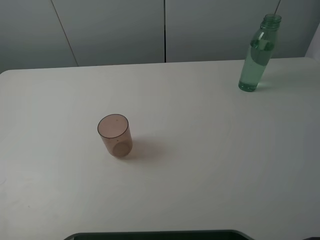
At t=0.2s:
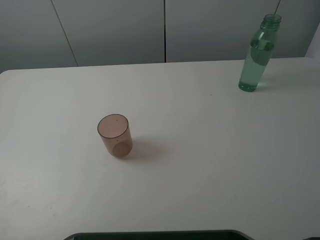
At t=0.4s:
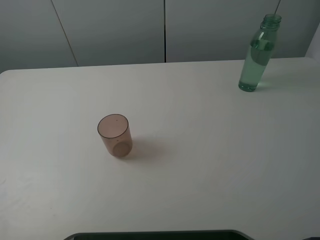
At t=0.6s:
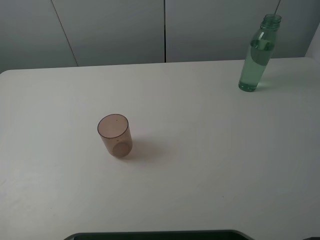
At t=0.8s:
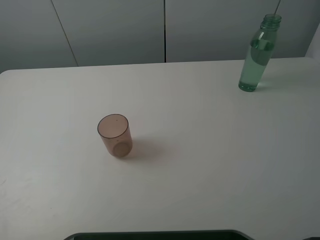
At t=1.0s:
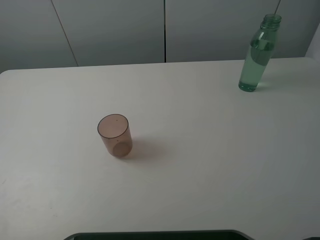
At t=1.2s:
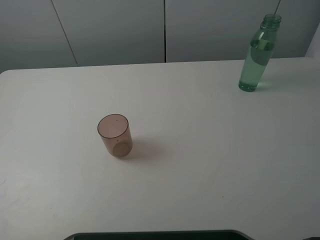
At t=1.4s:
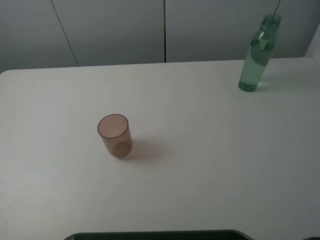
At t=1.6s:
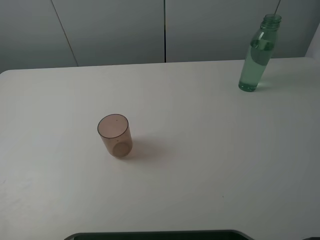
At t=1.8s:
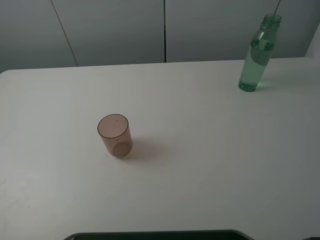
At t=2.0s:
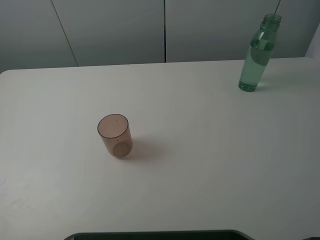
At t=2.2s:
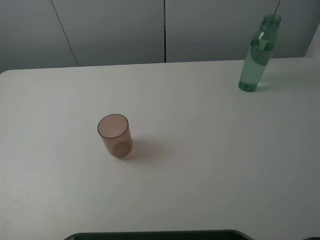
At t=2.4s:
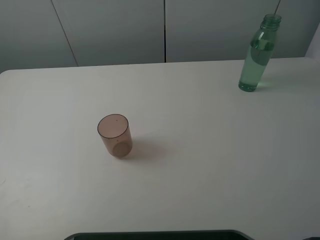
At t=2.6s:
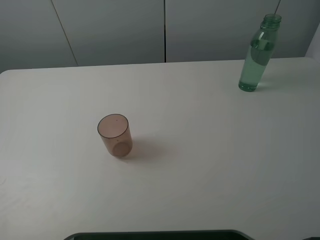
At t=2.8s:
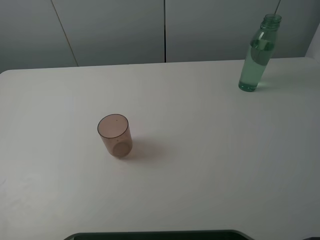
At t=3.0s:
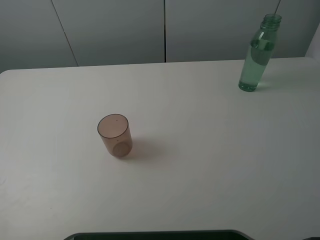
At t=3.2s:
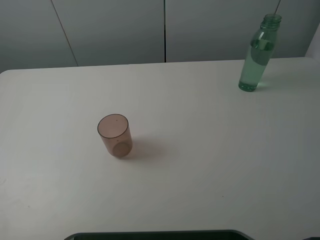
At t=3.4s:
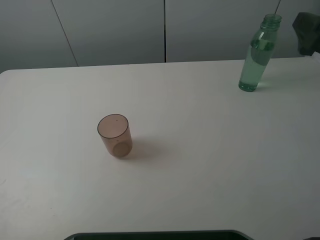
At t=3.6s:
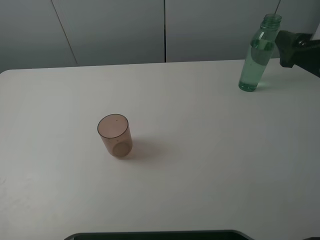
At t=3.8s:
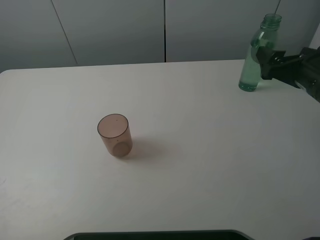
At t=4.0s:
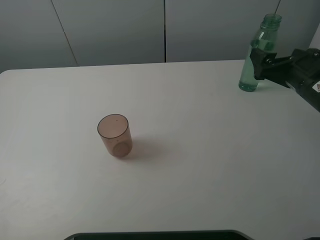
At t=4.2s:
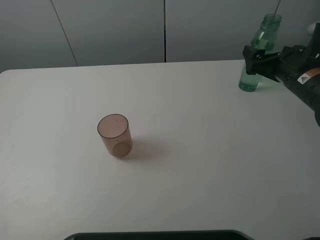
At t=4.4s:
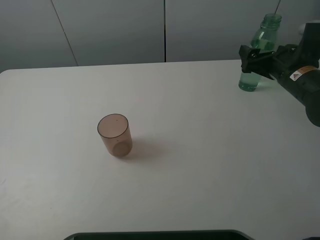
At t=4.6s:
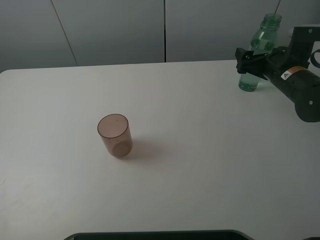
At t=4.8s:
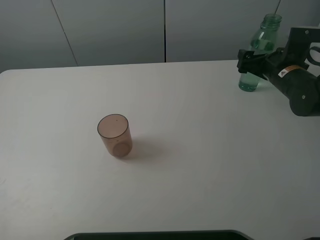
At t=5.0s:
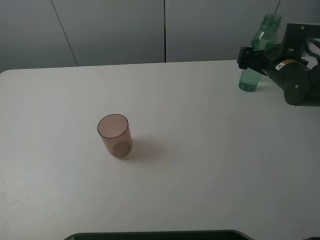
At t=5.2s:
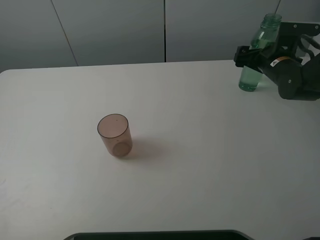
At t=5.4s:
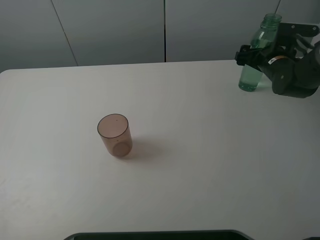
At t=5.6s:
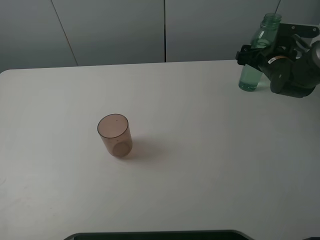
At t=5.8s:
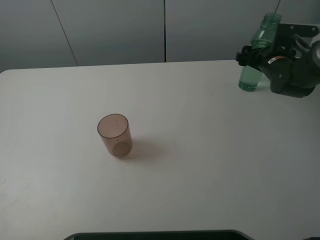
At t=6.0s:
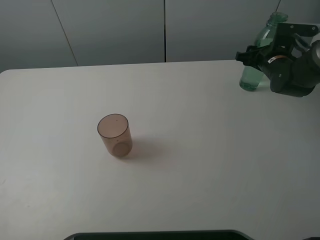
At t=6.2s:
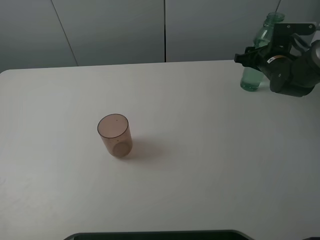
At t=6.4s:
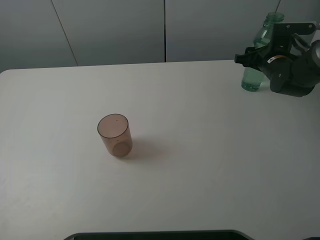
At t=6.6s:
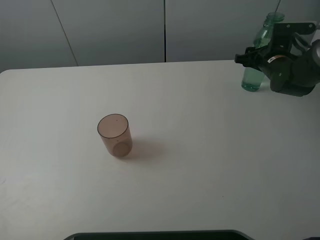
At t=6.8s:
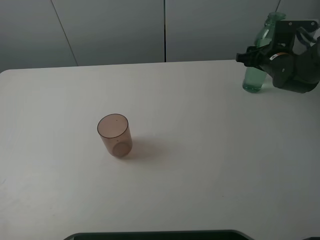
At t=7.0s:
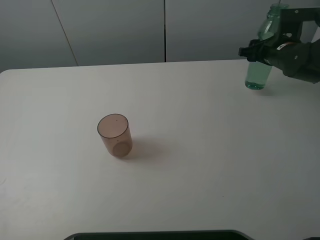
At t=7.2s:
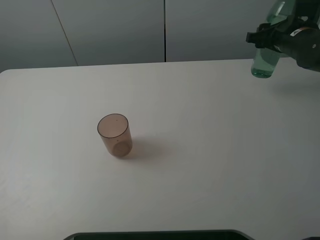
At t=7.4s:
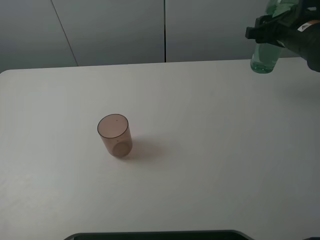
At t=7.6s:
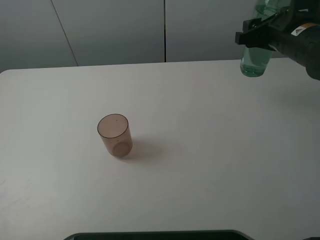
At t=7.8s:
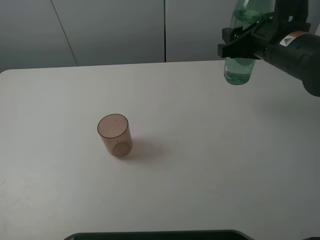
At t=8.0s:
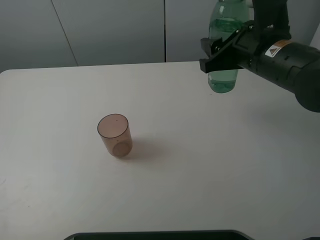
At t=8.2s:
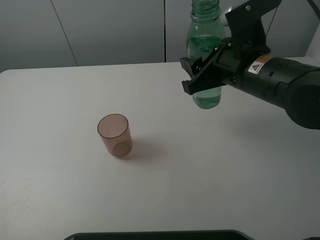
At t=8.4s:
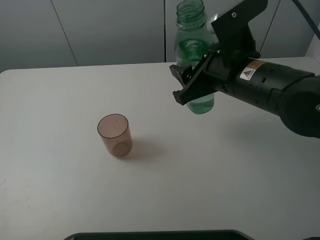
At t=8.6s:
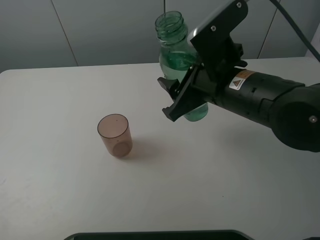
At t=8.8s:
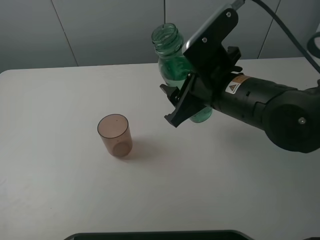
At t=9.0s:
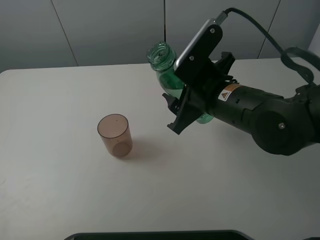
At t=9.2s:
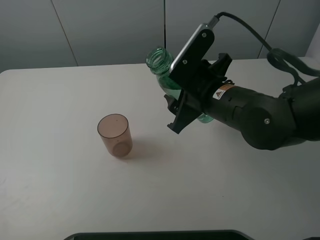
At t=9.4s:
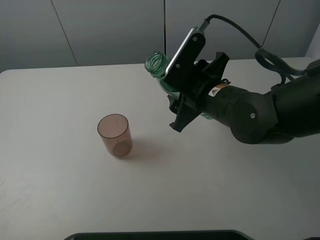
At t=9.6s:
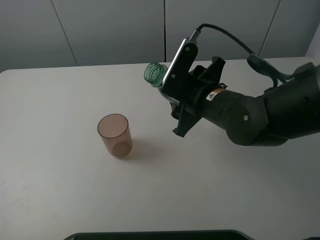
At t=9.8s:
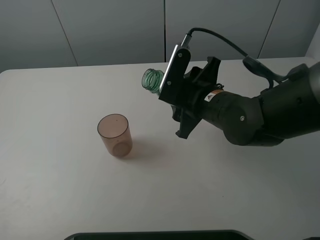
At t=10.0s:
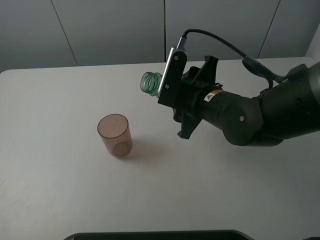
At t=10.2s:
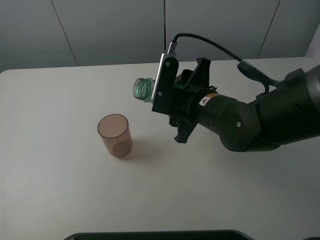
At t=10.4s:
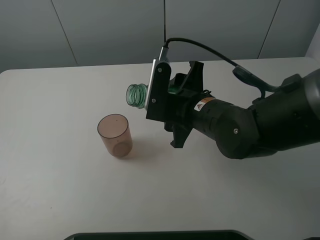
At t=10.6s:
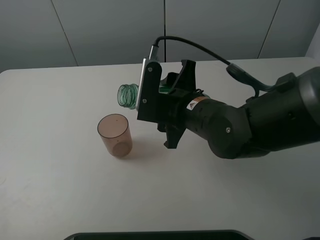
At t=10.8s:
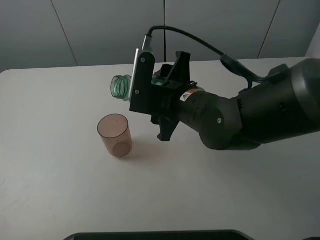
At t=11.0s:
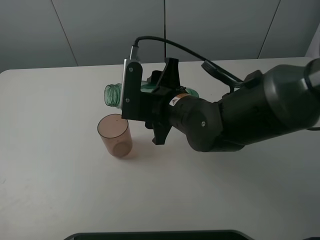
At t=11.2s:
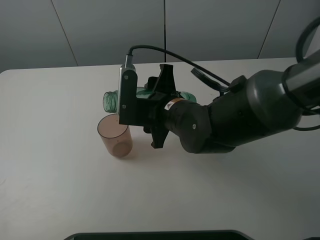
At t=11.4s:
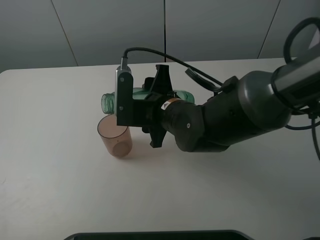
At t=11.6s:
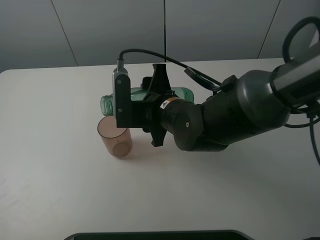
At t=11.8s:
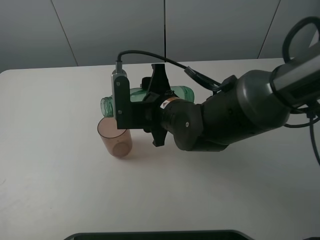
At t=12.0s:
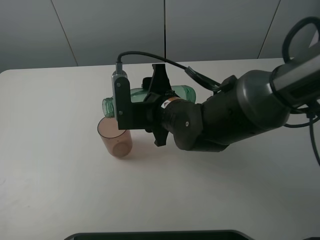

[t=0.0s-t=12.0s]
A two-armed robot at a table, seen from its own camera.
Task of the whole recording: pick up the bottle filled with water and pour it into the pink cup.
Step, t=0.0s to t=6.4s: Grasp the green bottle with the right gripper.
t=0.0s to t=1.6s: Both grippers stay put.
t=3.0s to t=4.4s: The right gripper shifts some 20 cm downward and forward.
t=4.4s to t=6.0s: The right gripper moves forward, approximately 10 cm, and closes.
t=6.0s to t=7.6s: The right gripper is displaced upward, backward and to the left by some 15 cm.
t=7.6s to t=9.0s: The right gripper moves to the left and backward, roughly 15 cm.
t=10.4s to t=12.0s: The right gripper shifts by some 5 cm.

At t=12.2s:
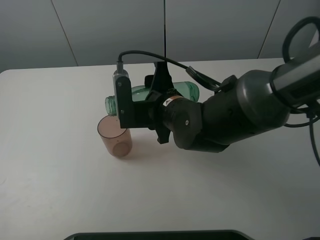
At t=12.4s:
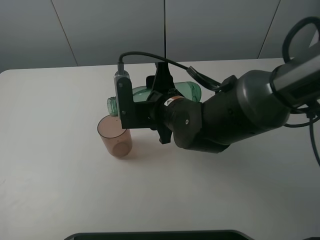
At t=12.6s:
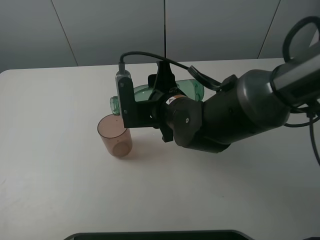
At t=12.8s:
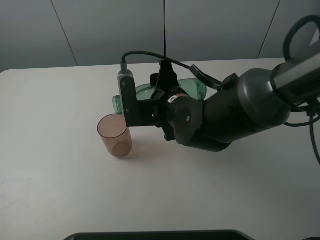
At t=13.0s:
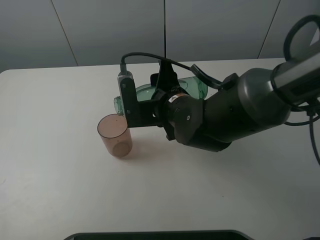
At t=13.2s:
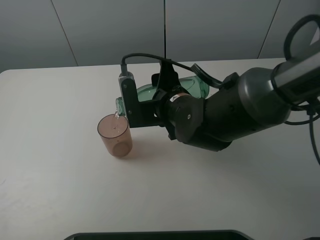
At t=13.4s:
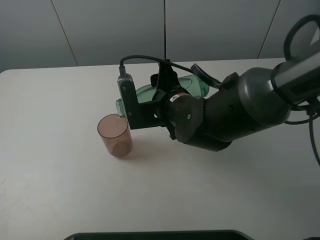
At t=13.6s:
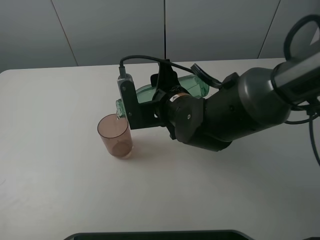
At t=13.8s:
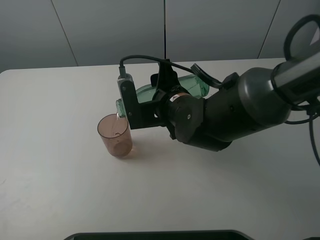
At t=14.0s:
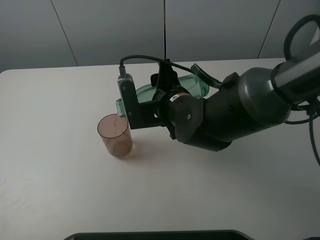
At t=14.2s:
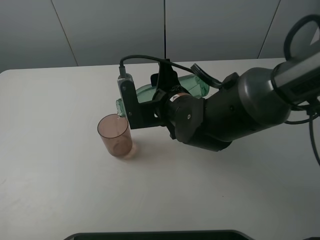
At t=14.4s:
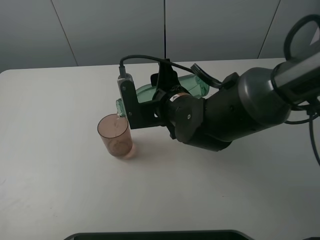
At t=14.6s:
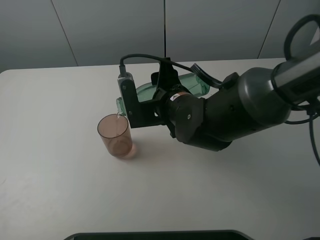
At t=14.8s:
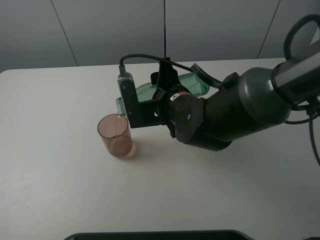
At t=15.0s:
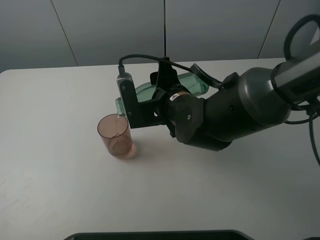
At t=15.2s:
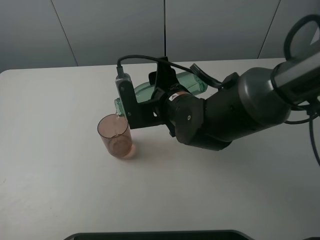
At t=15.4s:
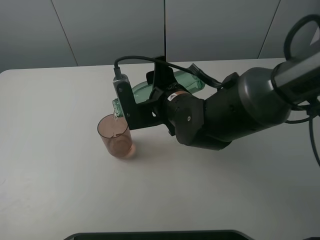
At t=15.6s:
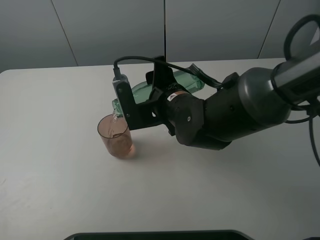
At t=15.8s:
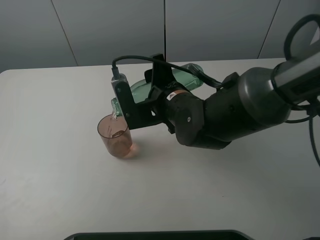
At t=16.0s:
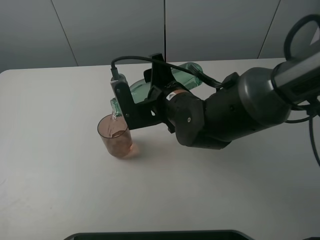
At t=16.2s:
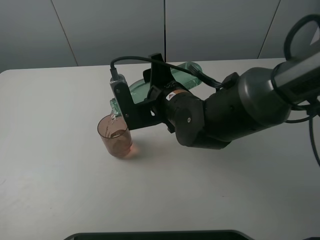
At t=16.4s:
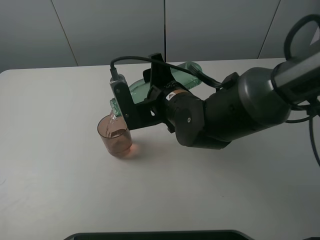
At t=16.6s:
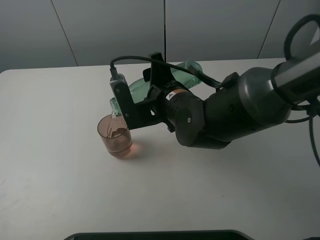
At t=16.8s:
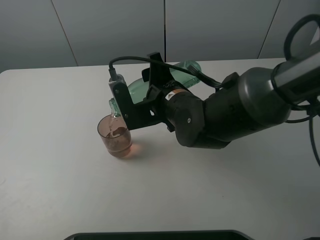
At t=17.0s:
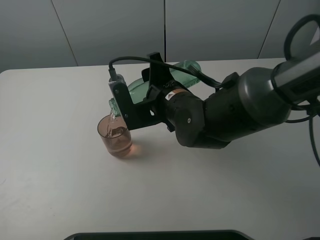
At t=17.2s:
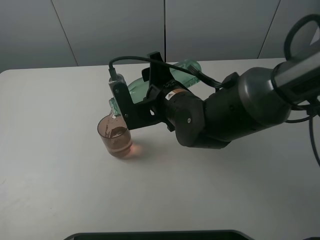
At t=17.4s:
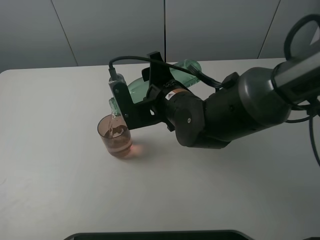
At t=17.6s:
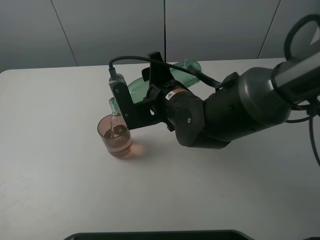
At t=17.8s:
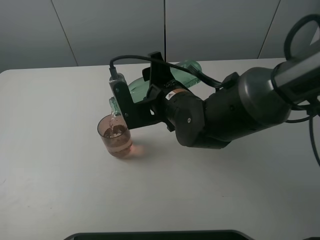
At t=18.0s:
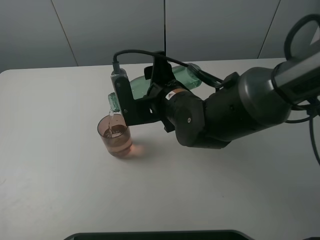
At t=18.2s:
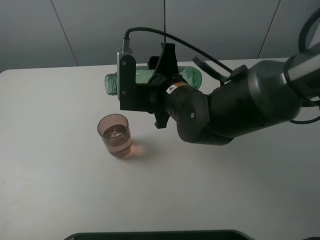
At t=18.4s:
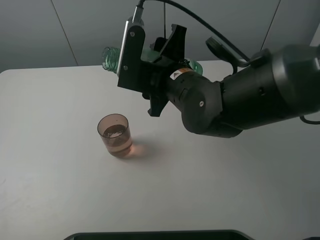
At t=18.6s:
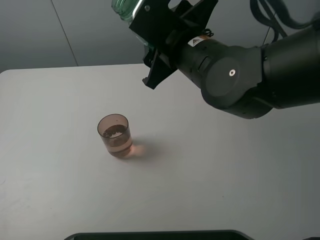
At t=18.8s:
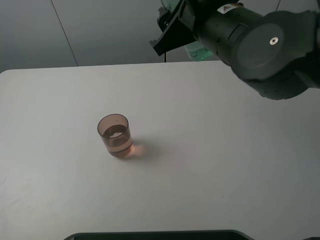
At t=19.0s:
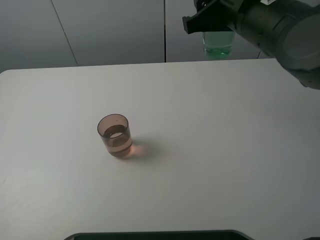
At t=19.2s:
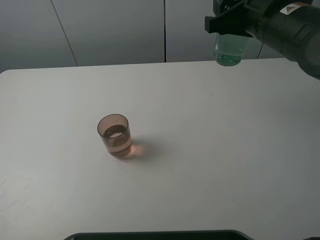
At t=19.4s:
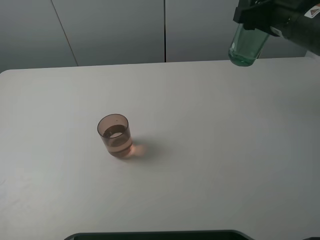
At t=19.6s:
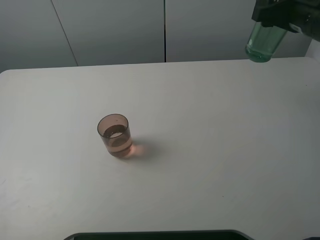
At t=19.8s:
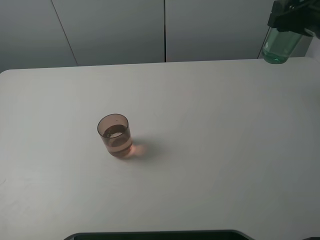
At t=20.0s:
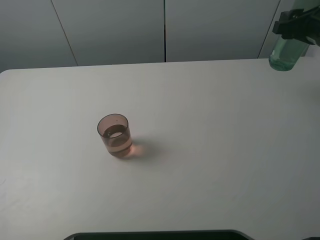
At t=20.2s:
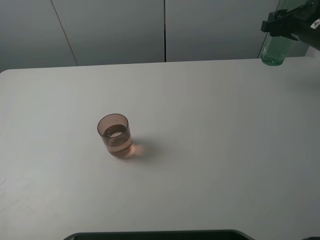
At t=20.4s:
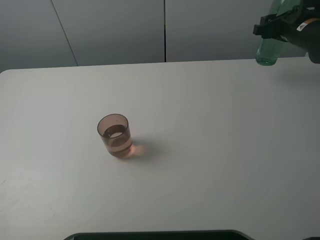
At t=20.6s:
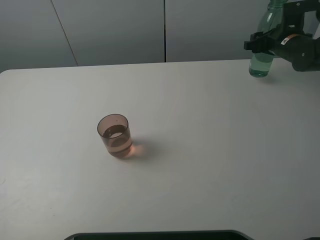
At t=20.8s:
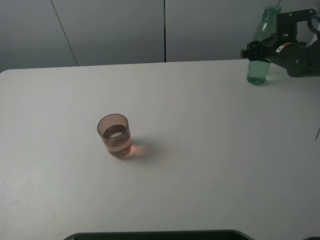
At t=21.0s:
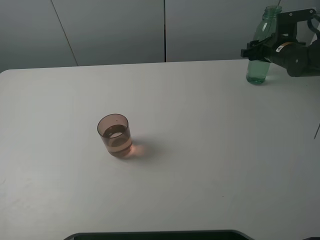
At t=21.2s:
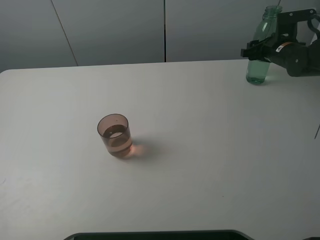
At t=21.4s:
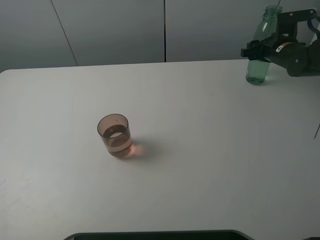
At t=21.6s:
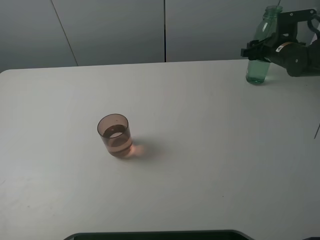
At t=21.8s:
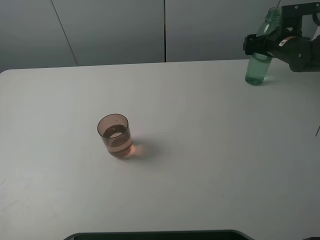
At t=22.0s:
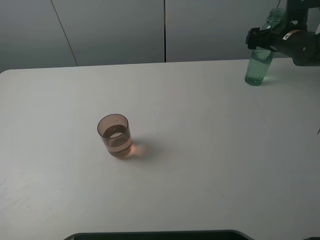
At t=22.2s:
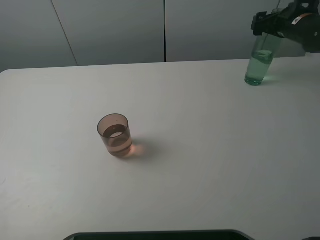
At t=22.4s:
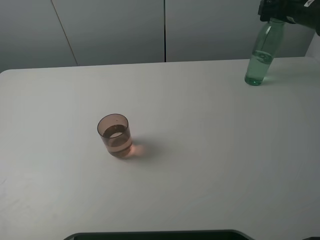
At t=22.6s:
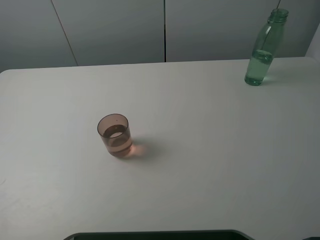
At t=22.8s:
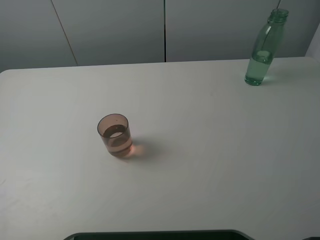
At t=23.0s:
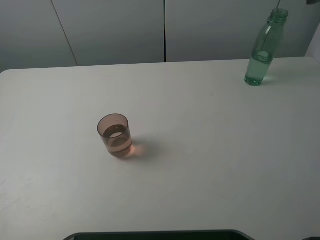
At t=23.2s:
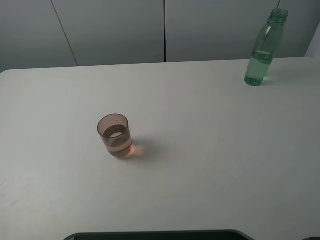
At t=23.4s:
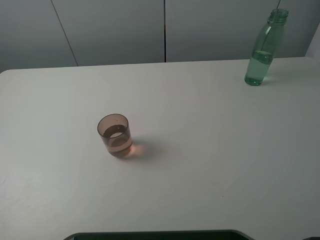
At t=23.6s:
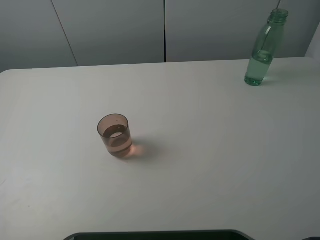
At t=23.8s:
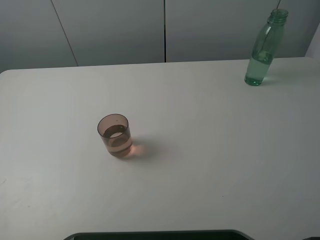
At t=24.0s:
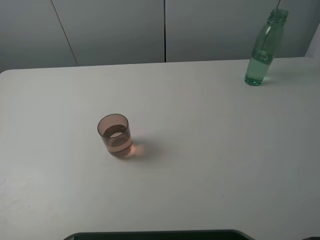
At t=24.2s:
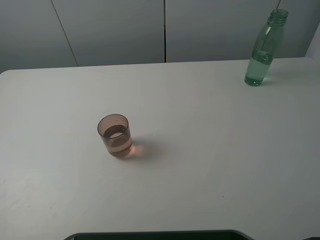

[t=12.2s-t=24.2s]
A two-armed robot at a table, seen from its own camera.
Task of the whole recording: pick up the bottle filled with water and pour it into the pink cup.
Step, t=12.2s to t=18.4s: Pour water from green bottle to pink cup with the right gripper.
Step, t=18.6s to t=22.2s: Place the green bottle with the right gripper.
t=12.2s to t=13.8s: There are only small adjustments of the grippers.
t=13.8s to t=15.2s: Both grippers stay put.
t=15.2s to t=16.6s: The grippers make only small movements.
t=18.2s to t=19.8s: The right gripper is displaced to the right by approximately 25 cm.
t=19.8s to t=21.2s: The right gripper goes some 20 cm forward and downward.
t=21.2s to t=22.6s: The right gripper moves upward, roughly 20 cm, and opens up.
